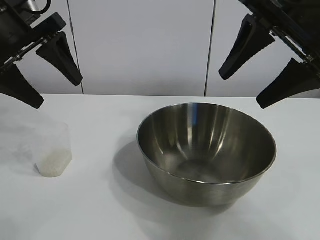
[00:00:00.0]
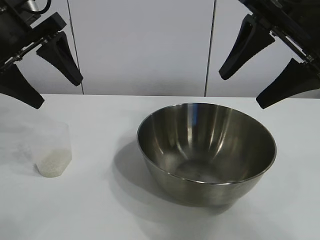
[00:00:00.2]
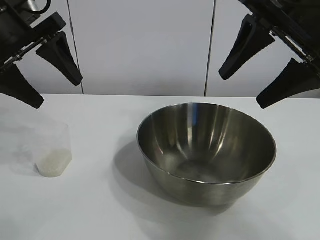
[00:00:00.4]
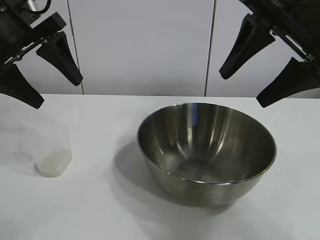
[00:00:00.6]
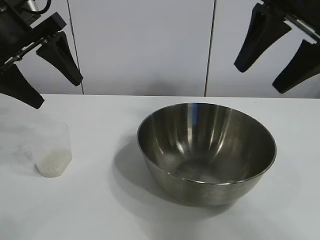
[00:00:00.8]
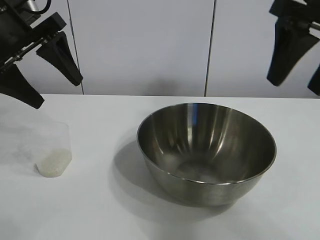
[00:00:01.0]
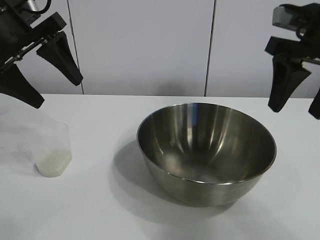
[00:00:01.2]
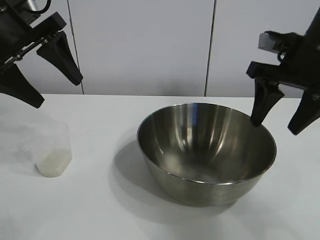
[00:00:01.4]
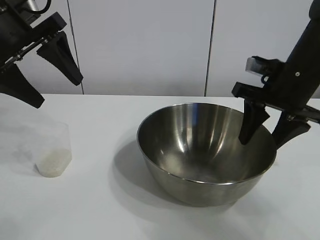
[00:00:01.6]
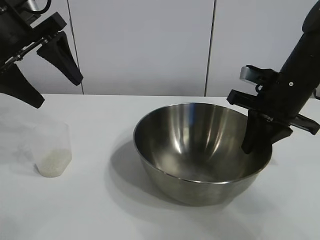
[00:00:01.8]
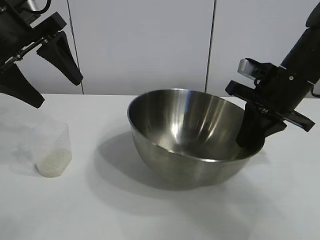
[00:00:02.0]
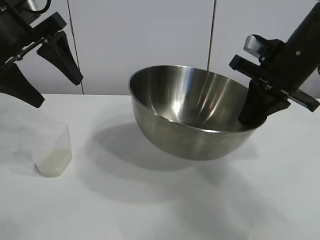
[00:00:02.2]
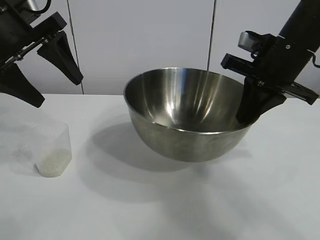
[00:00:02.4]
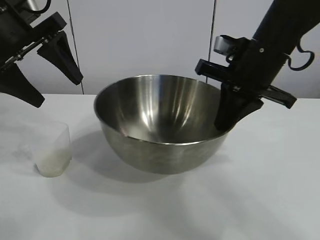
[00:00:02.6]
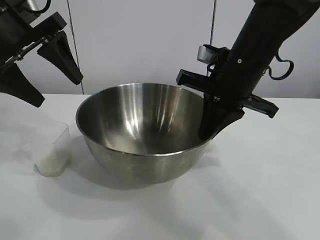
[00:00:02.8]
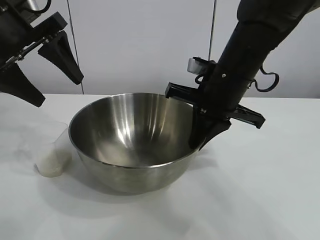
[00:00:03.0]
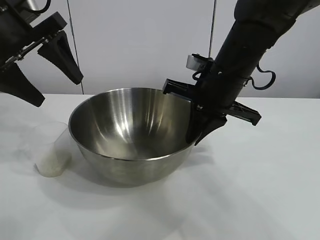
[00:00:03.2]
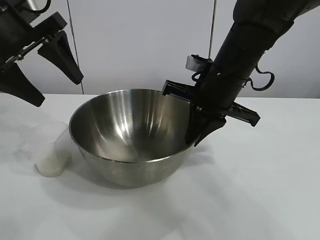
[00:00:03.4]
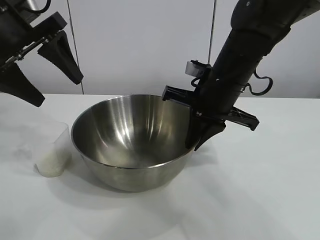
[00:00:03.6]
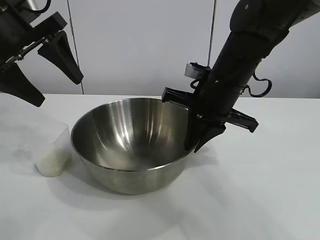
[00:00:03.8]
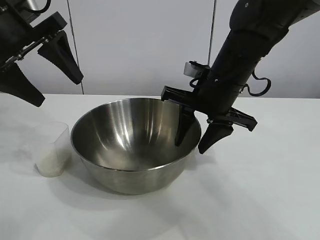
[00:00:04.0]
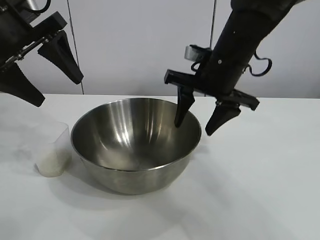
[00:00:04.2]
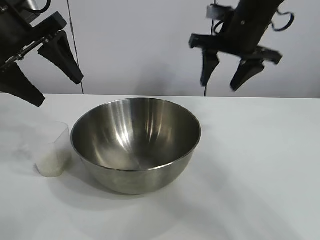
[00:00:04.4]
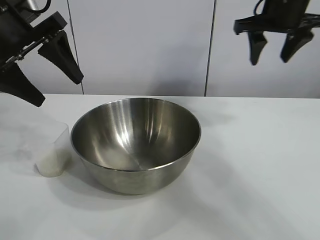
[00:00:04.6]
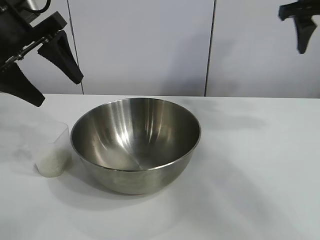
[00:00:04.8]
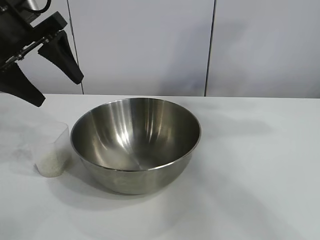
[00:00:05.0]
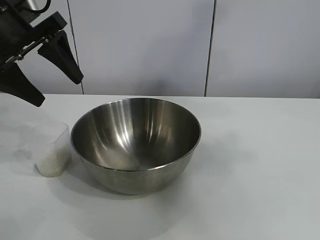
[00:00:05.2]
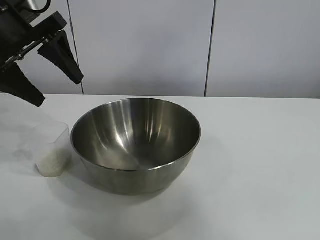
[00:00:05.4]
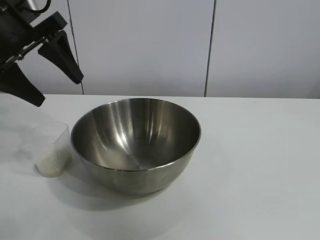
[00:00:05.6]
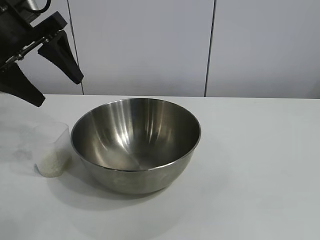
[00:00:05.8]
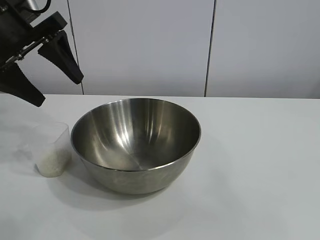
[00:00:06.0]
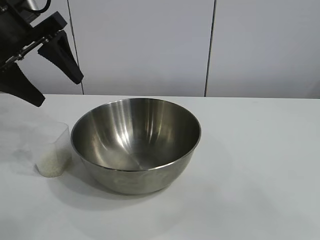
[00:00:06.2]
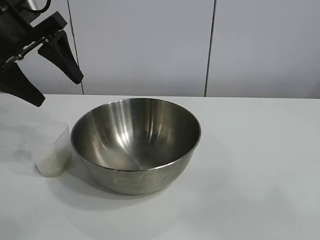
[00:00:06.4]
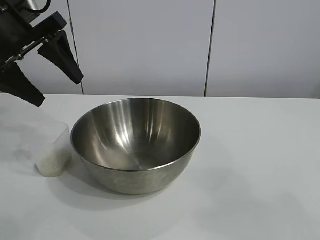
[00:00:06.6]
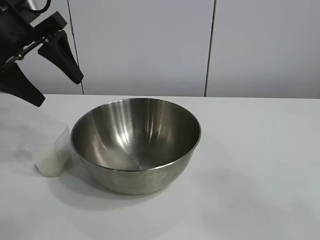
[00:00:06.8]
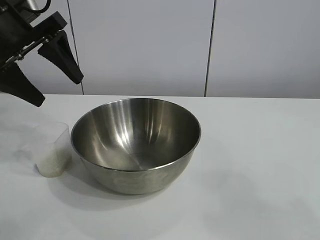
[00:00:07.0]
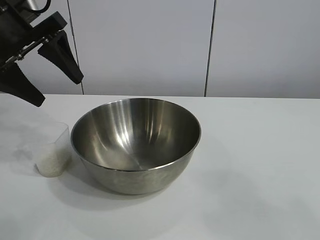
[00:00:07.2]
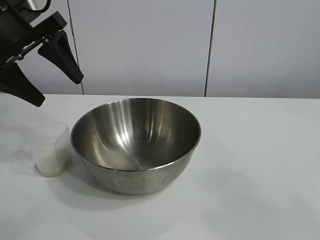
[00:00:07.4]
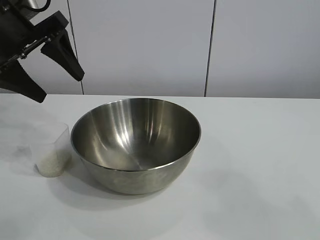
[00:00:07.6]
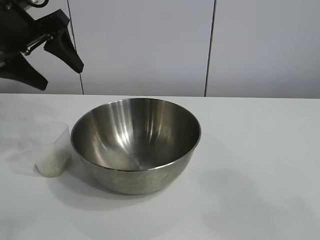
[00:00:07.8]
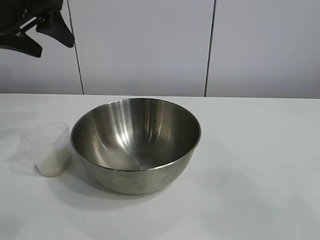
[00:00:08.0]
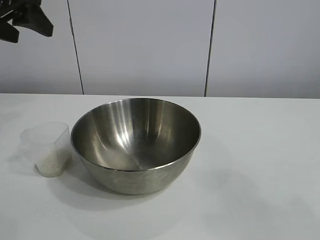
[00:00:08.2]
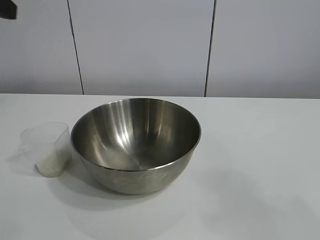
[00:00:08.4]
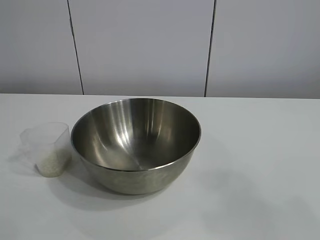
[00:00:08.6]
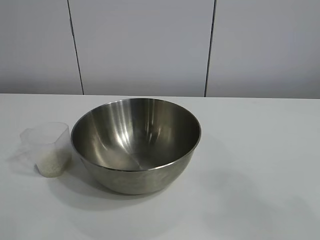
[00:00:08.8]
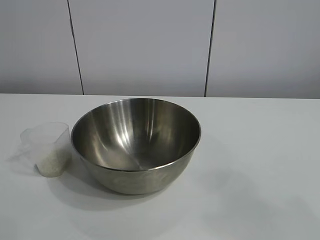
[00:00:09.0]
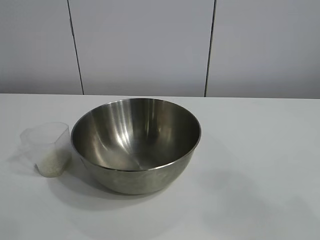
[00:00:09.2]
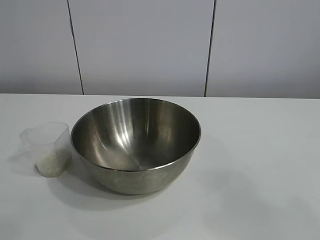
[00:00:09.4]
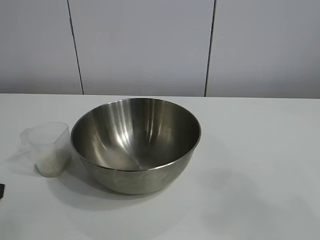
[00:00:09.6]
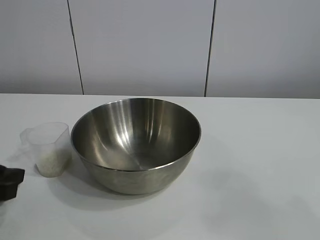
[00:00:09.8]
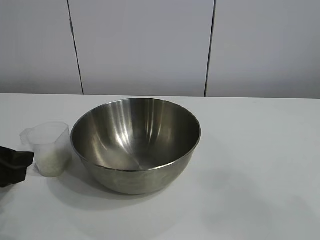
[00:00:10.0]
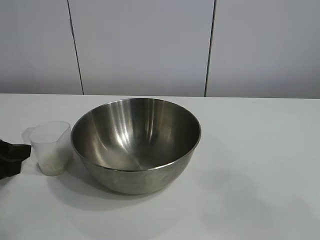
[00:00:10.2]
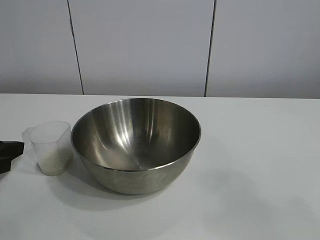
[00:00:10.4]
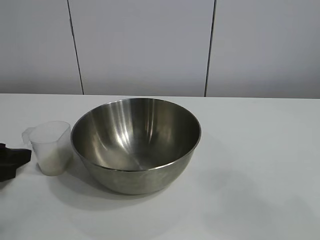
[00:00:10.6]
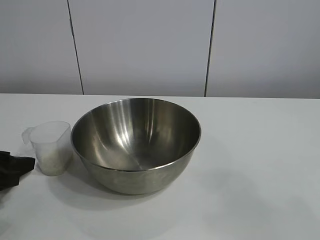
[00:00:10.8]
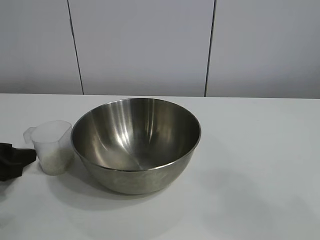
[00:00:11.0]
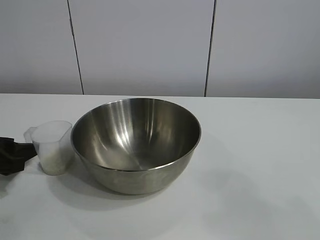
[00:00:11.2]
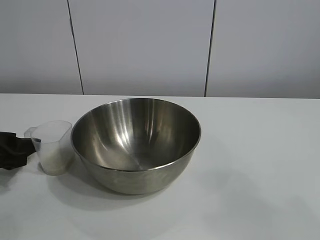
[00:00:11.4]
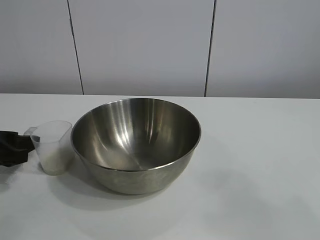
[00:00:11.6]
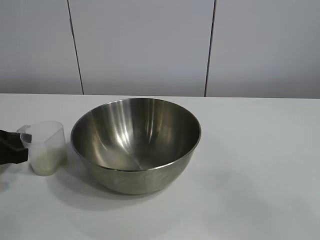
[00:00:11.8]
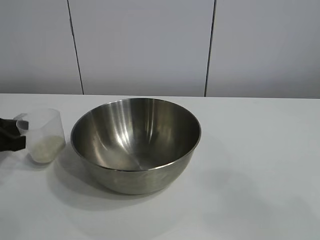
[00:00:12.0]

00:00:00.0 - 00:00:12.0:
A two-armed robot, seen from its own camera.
Task of the whole recording: the right gripper grasp the rice container and place it in the center of the table, the left gripper grasp the rice scoop and pour the rice into the rice container.
Step, 00:00:00.6 - 00:00:04.0: Move the bowl in the center of view with right gripper.
Step, 00:00:04.2 - 00:00:11.8: Grasp the cup with rice in it with left gripper.

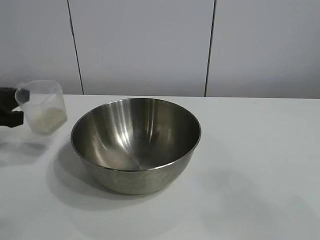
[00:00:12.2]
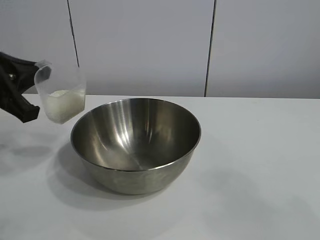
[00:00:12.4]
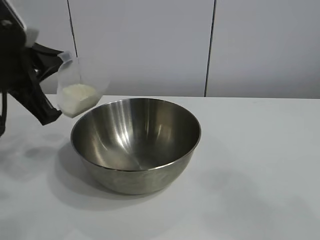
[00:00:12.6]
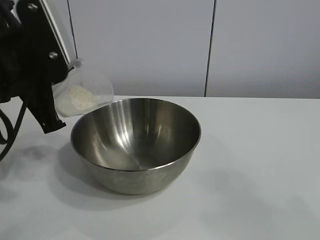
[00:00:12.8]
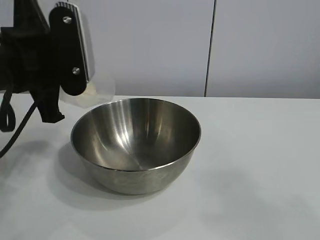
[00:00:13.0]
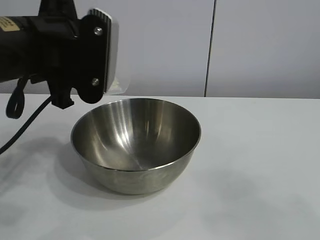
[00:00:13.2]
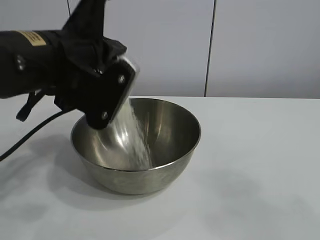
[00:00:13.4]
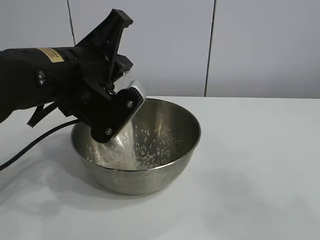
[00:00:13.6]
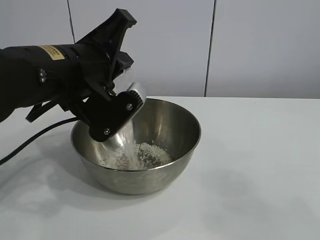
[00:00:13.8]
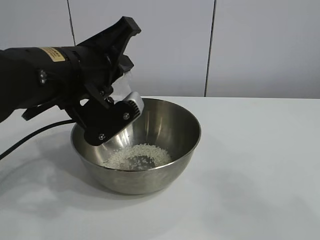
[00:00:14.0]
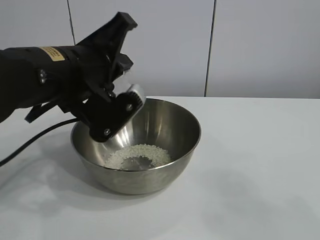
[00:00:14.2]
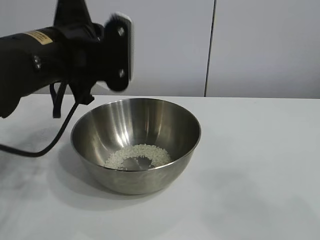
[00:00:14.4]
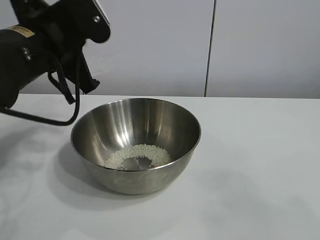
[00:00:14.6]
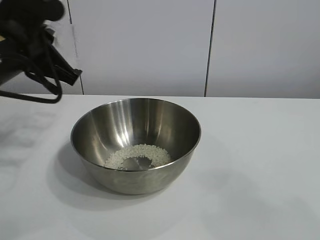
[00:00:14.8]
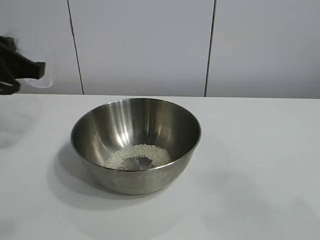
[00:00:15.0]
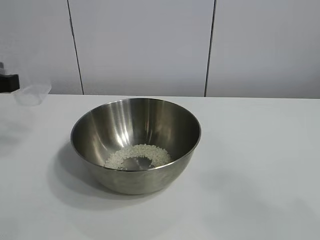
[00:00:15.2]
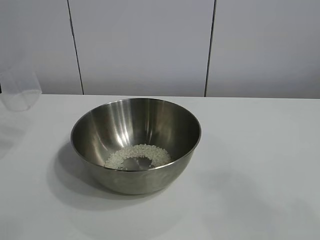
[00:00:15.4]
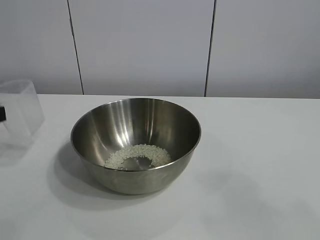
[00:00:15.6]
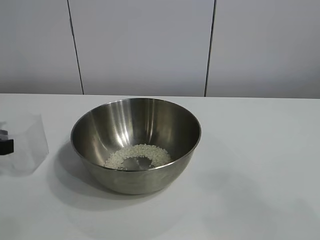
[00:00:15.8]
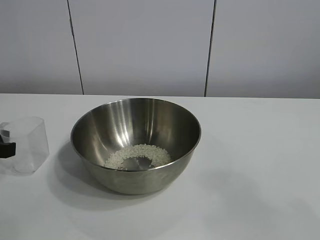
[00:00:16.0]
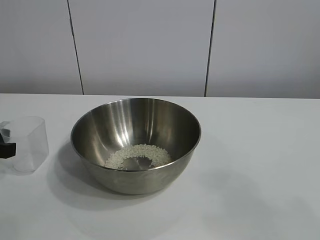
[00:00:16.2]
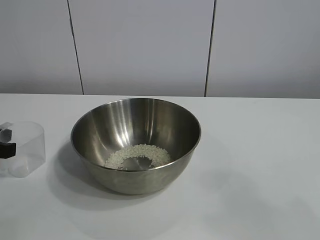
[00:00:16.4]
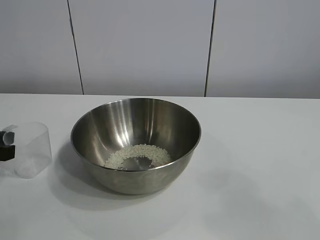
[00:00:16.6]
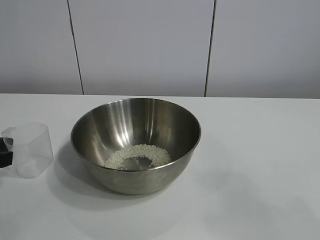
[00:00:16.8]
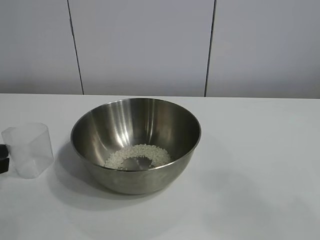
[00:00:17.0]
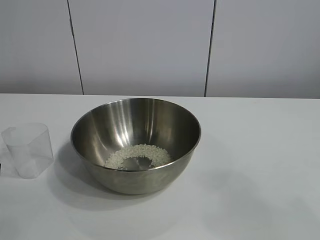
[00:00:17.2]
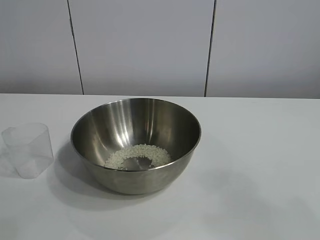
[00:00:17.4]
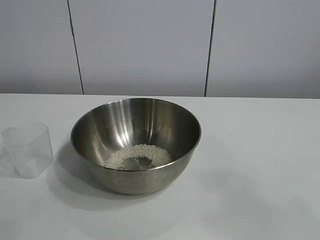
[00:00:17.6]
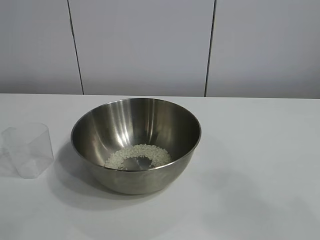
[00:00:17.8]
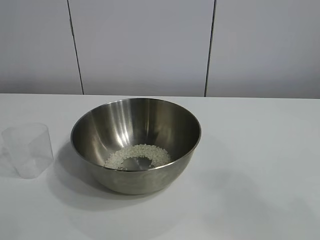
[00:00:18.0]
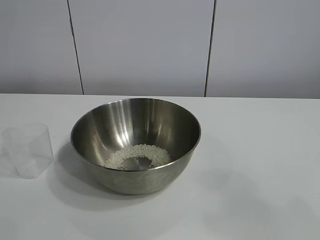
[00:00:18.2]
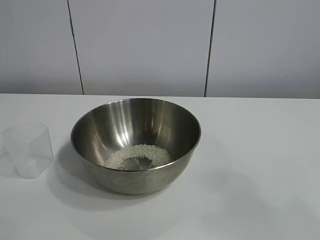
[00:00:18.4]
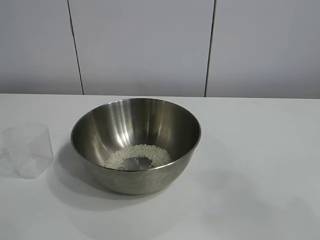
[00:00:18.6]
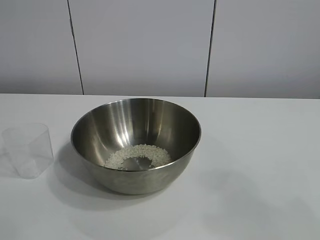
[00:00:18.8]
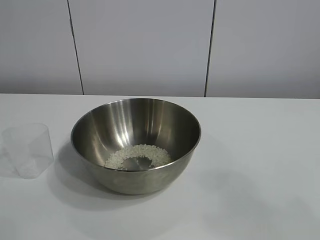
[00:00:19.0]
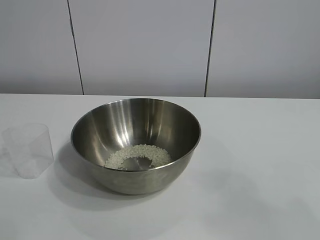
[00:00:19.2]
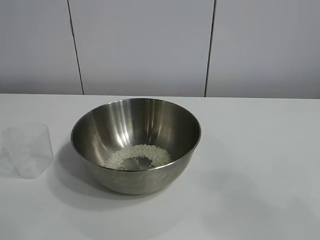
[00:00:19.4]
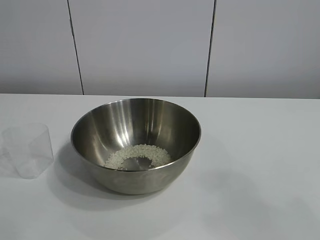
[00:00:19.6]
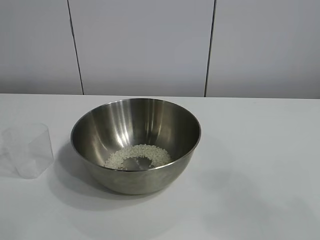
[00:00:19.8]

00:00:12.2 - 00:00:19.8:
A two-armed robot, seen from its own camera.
Task of the whole recording: the right gripper grasp the rice container and place it in the center of the table, the left gripper grasp the rice scoop and pour the rice into the rice container.
Step, 00:00:12.2 - 00:00:14.2: Pour the rice from the cup into the bowl with the left gripper.
Step, 00:00:14.6 - 00:00:16.6: Place the cup on the table with the left gripper.
